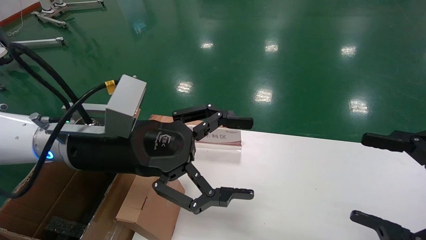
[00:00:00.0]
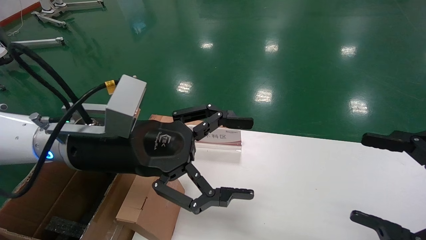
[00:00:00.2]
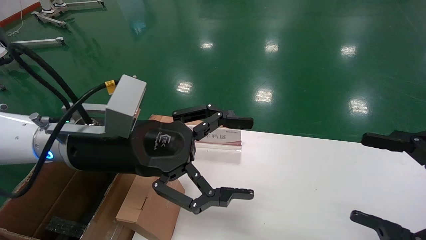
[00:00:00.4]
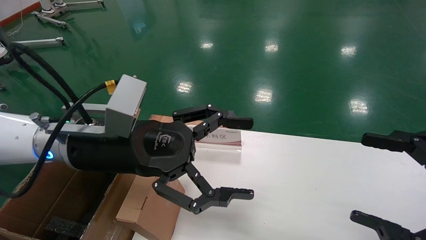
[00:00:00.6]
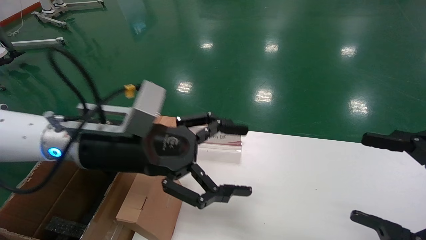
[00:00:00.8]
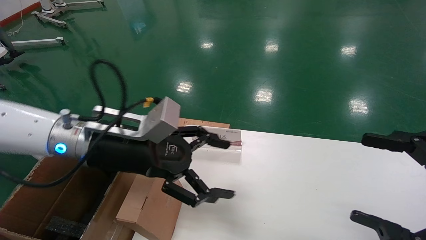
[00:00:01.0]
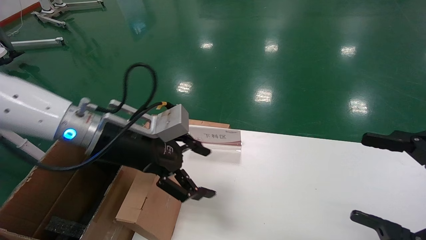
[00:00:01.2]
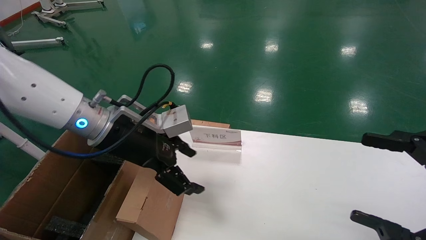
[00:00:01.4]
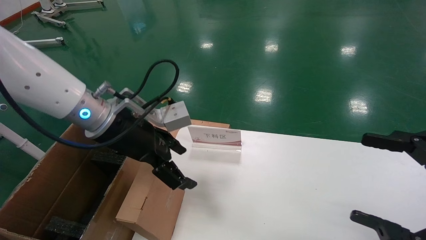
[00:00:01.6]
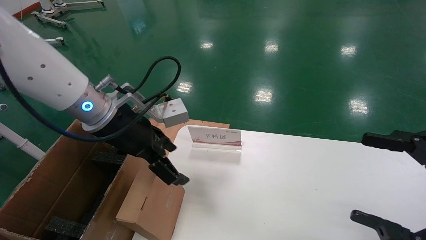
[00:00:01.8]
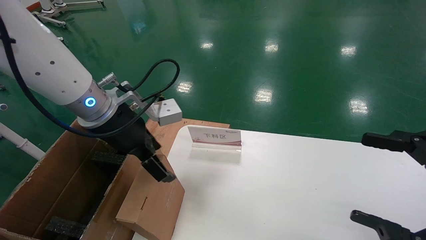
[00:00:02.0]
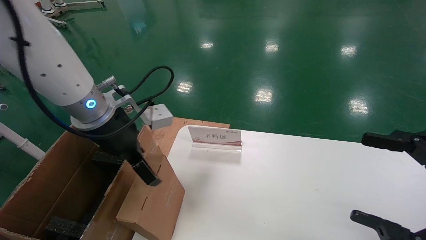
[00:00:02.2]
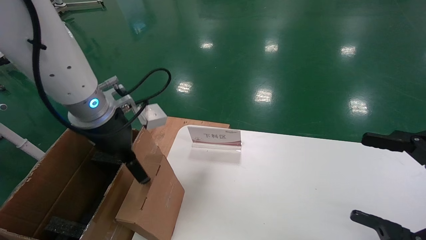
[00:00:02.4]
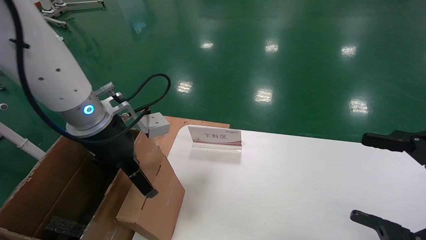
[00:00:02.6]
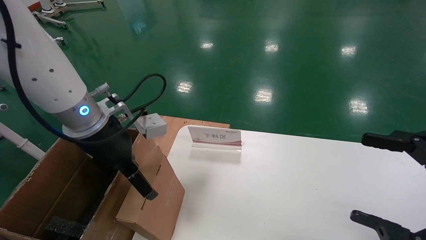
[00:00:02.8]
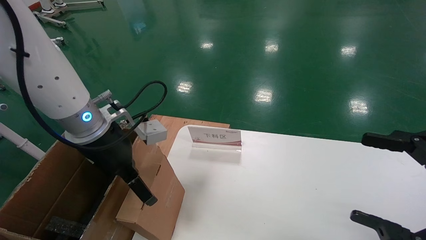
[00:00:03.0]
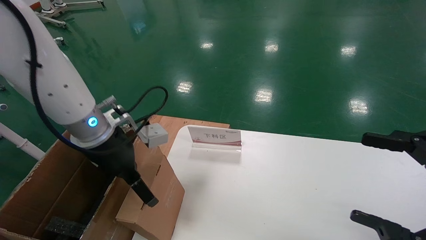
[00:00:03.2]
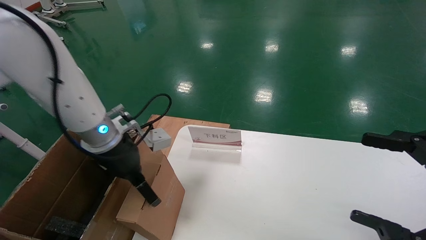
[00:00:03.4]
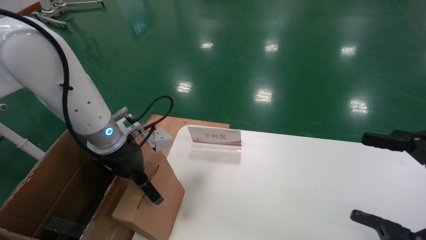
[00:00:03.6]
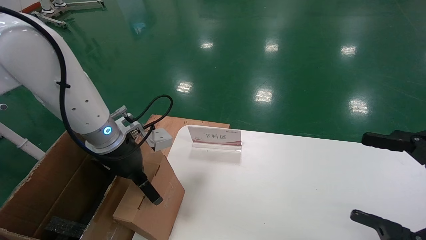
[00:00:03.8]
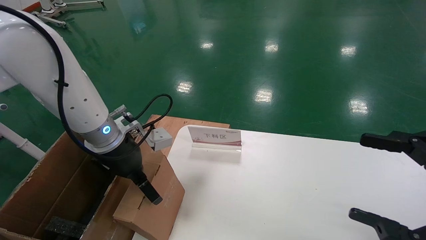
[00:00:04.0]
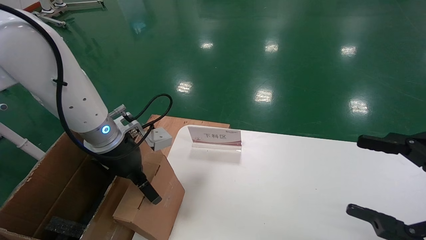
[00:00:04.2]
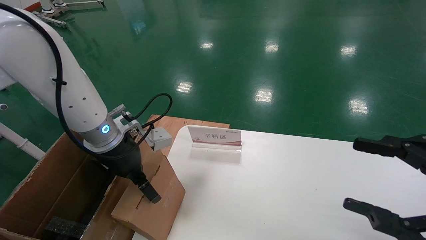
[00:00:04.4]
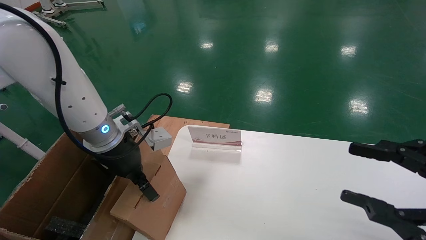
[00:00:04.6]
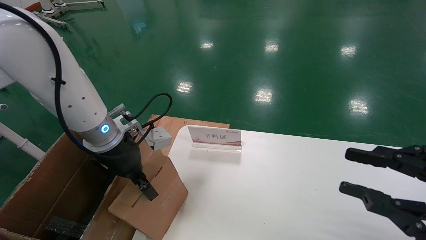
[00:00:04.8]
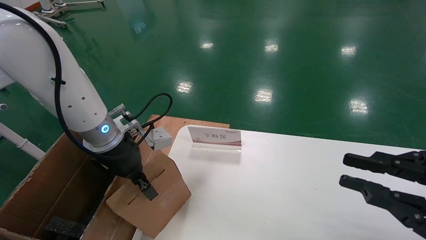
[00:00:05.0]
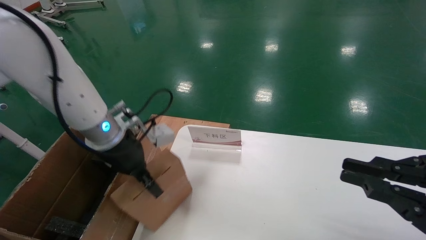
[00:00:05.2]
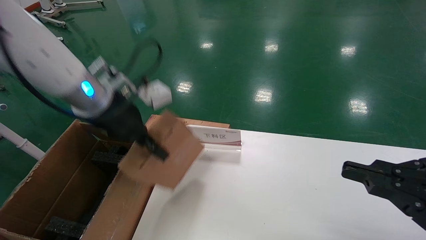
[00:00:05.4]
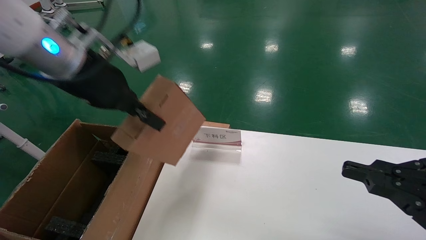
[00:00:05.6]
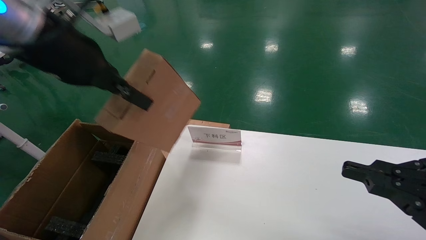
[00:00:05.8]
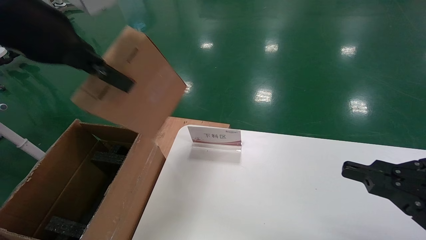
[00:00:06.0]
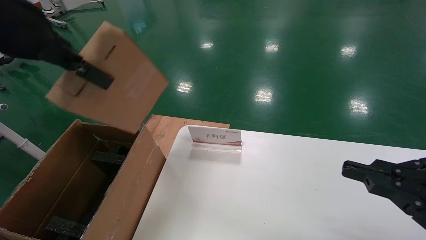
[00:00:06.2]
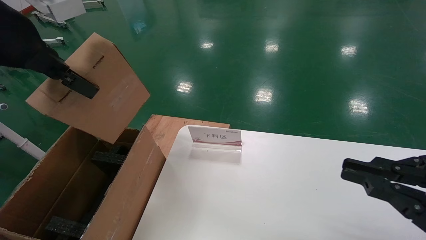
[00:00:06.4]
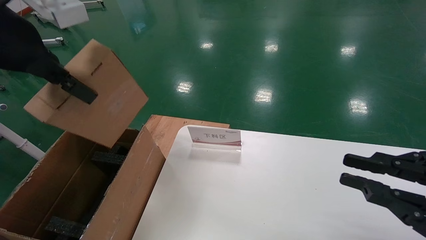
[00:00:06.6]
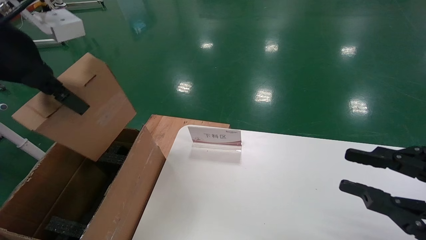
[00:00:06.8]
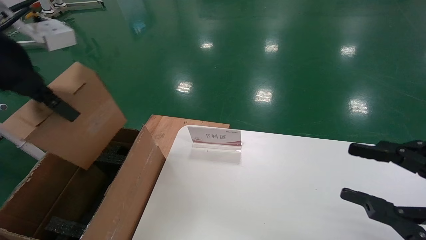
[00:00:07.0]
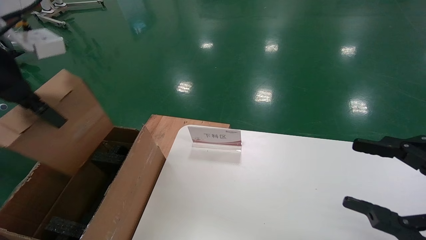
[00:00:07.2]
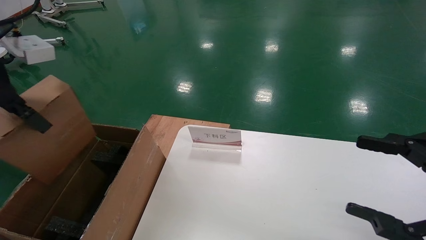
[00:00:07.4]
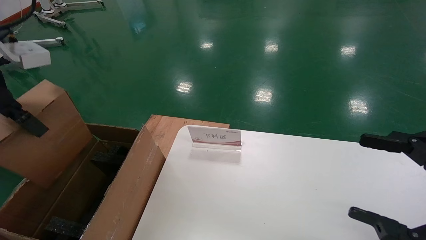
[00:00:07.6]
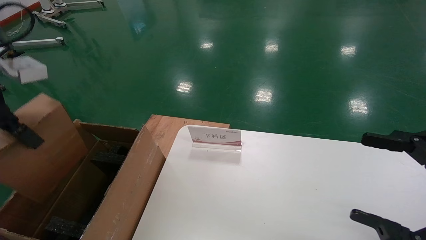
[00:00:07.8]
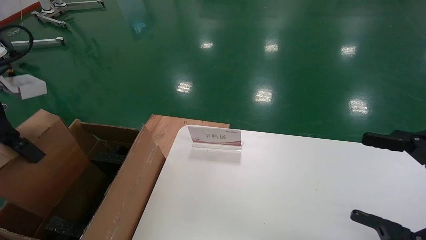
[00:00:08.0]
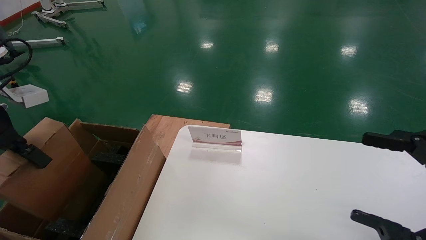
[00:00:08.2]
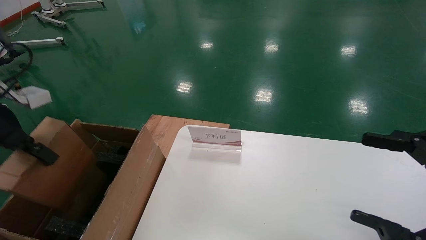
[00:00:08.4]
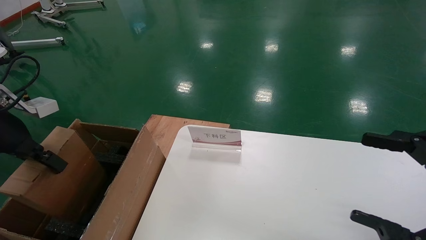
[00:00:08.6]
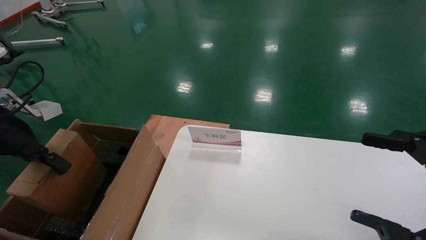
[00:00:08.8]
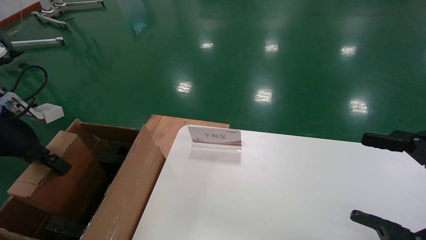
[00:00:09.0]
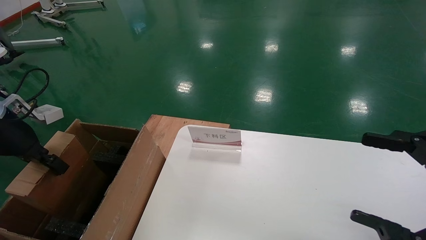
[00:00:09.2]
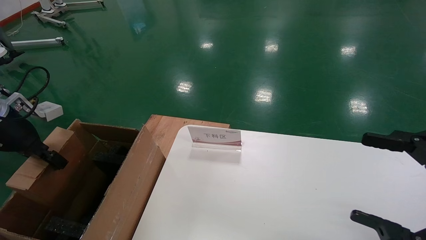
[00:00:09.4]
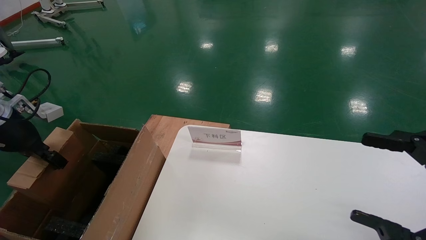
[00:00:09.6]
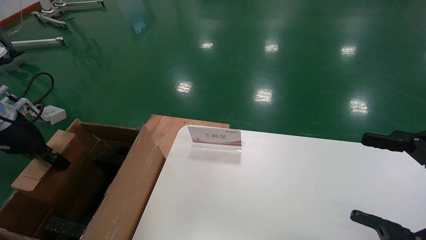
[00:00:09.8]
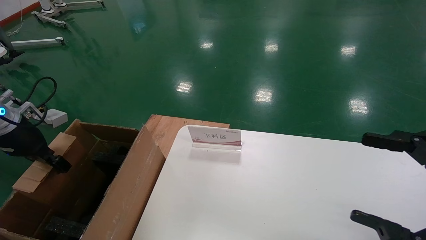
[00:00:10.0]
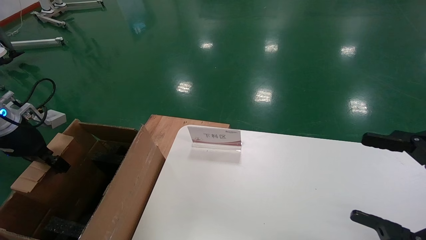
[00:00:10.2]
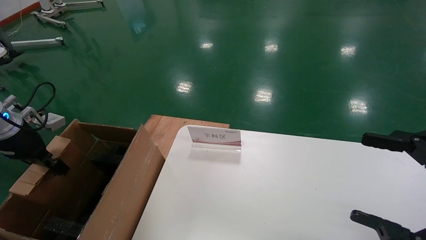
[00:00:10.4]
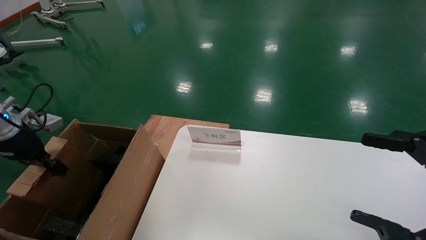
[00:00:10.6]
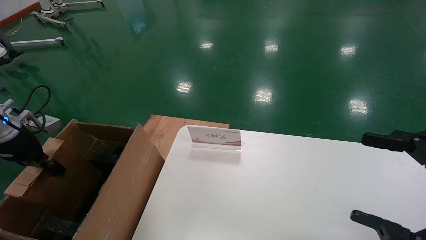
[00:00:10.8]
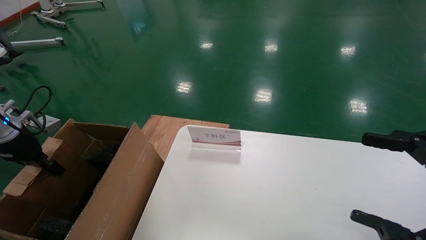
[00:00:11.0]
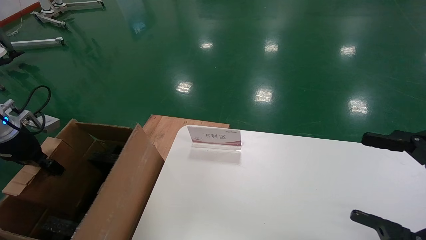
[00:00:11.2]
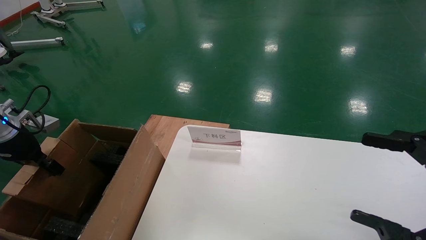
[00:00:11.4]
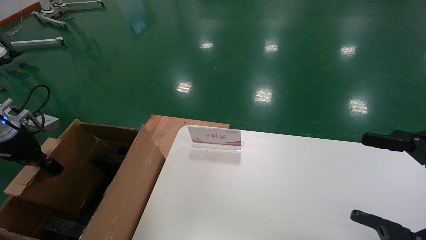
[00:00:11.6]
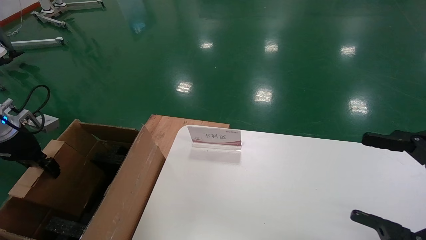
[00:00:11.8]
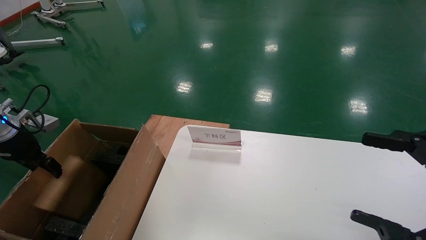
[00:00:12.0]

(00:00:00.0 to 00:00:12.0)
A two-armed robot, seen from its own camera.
Task of the whole recording: pick up the small cardboard box and load it into the large cardboard box.
Step, 00:00:00.8 - 00:00:05.6: Pick up the mouse and power cord box.
00:00:00.0 - 00:00:01.6: The left gripper heads forward, covering some 5 cm.
00:00:03.0 - 00:00:04.4: The grippers make only small movements.
00:00:04.4 - 00:00:06.0: The left gripper moves upward and backward, about 25 cm, and closes, while the right gripper closes its fingers.
00:00:06.0 - 00:00:07.6: The left gripper goes roughly 10 cm to the left; the right gripper opens.
00:00:07.6 - 00:00:09.0: The left gripper goes about 15 cm downward and to the left.
00:00:09.0 - 00:00:10.4: The left gripper travels downward and to the left by some 5 cm.
00:00:10.4 - 00:00:12.0: The left gripper opens.

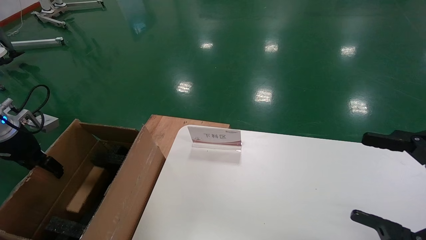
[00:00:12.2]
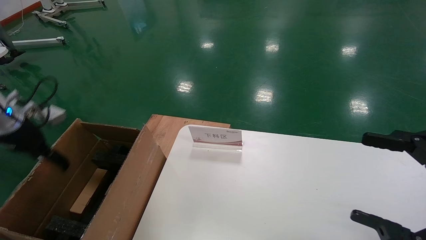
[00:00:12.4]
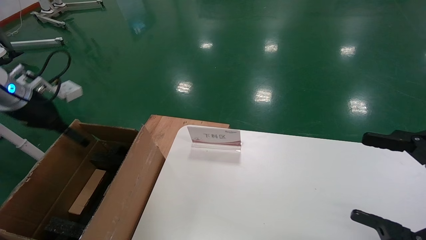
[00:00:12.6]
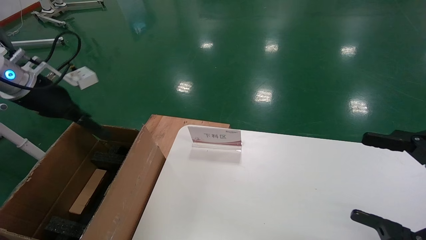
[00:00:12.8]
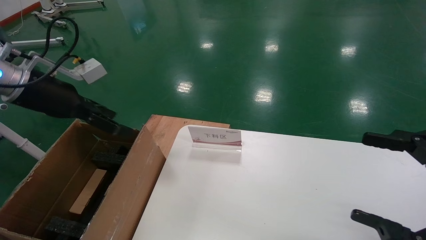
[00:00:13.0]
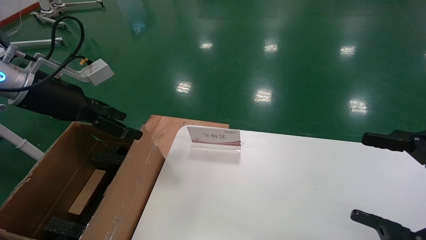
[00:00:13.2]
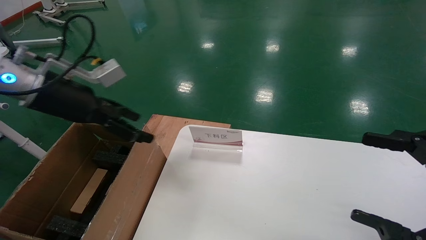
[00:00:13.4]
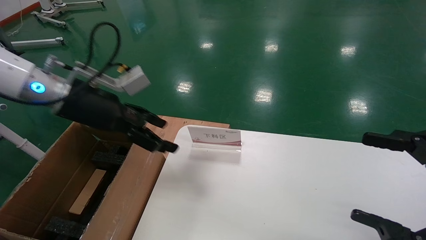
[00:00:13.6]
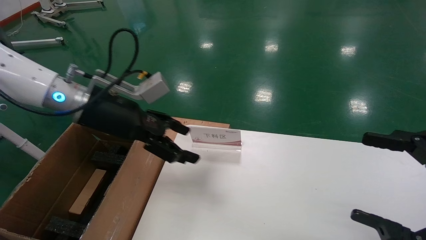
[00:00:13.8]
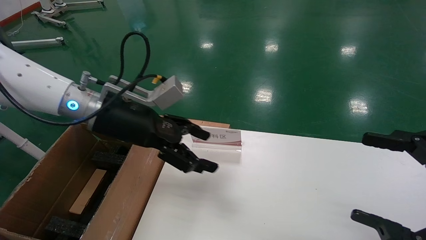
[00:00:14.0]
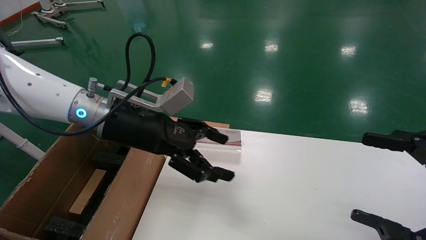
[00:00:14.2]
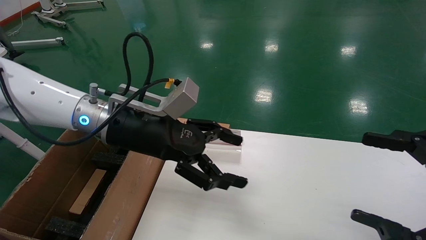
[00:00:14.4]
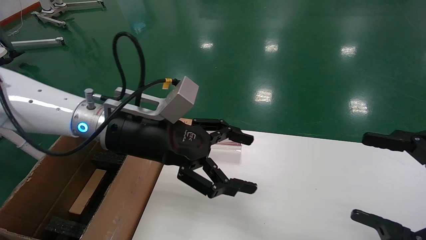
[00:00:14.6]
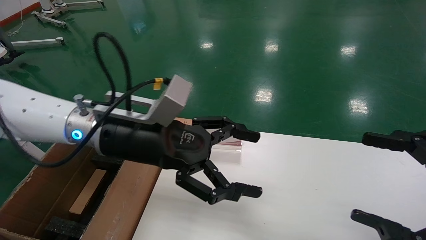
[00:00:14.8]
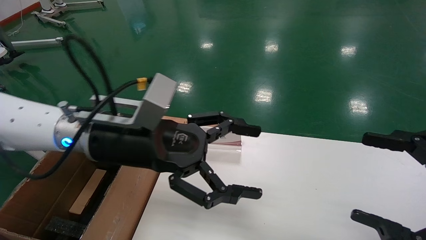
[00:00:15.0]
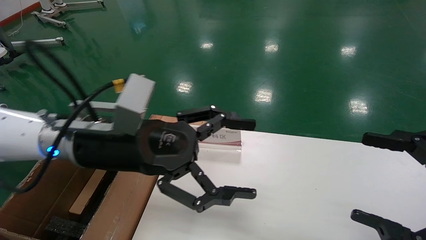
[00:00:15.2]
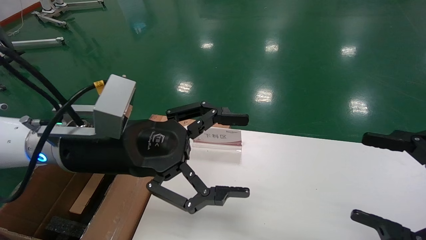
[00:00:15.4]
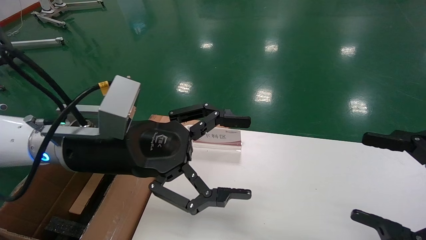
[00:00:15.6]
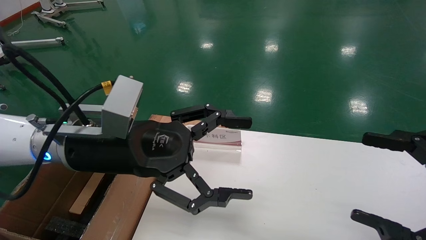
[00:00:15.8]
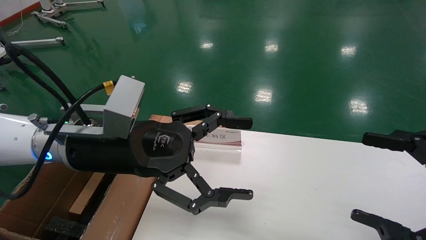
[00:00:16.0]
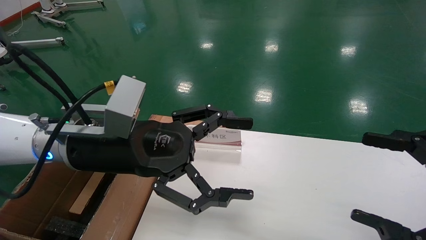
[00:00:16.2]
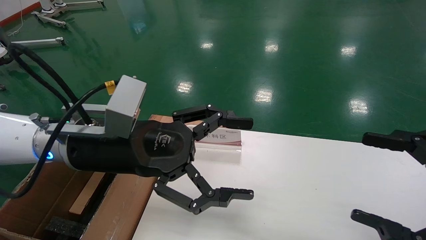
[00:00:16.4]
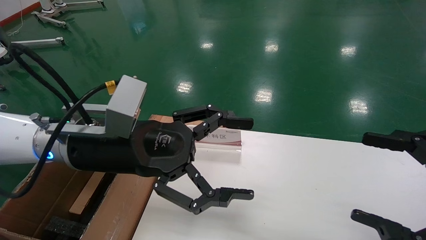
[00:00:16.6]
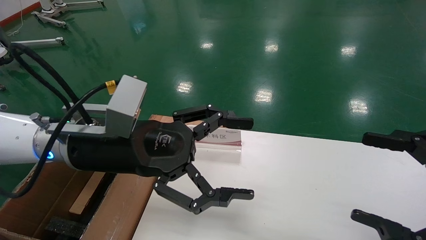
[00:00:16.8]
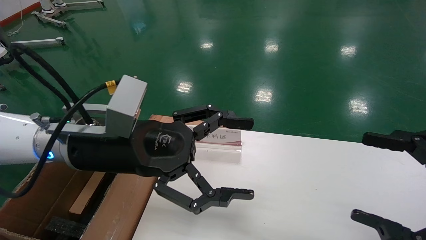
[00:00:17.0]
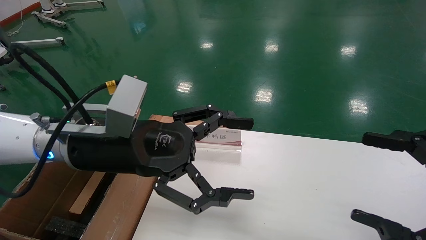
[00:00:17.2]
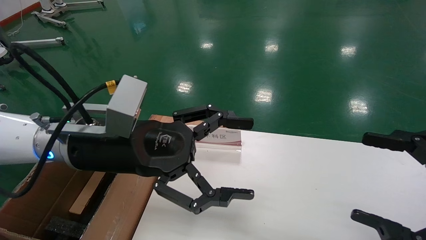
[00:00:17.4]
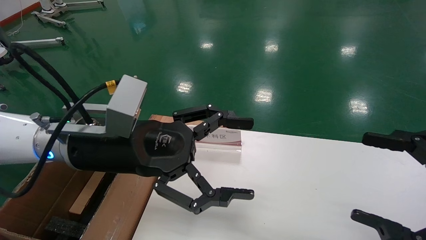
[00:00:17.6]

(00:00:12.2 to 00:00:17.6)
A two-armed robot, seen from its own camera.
Task of the whole recording: pick up the small cardboard box and load it into the large cardboard box.
00:00:12.2 - 00:00:13.6: The left gripper shifts some 20 cm to the right.
00:00:13.6 - 00:00:15.0: The left gripper travels to the right and backward by about 15 cm.
00:00:15.0 - 00:00:16.2: The grippers make only small movements.
00:00:16.2 - 00:00:17.6: Neither gripper changes place.
